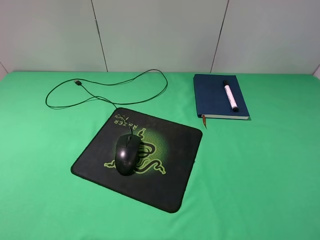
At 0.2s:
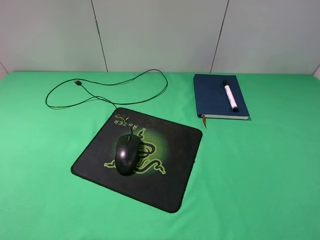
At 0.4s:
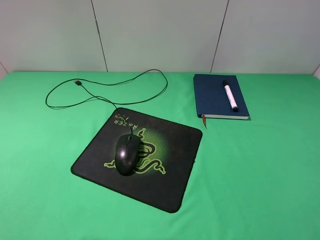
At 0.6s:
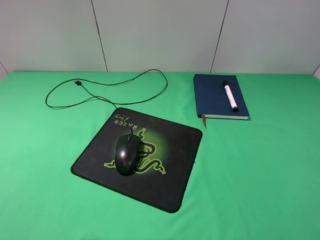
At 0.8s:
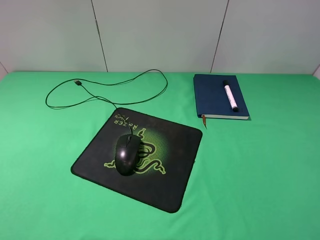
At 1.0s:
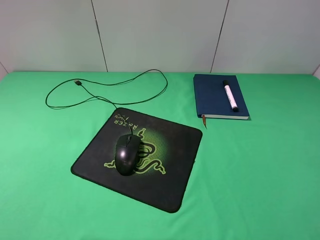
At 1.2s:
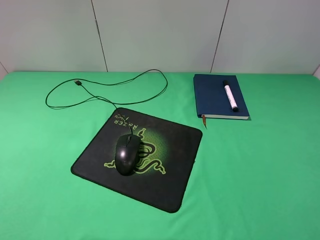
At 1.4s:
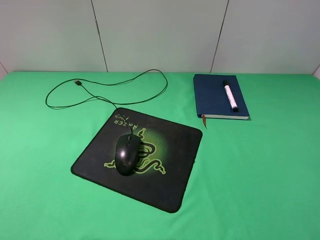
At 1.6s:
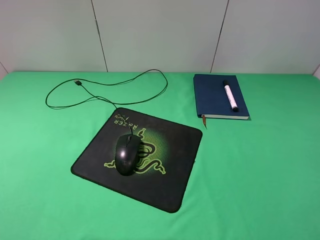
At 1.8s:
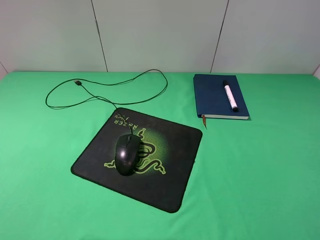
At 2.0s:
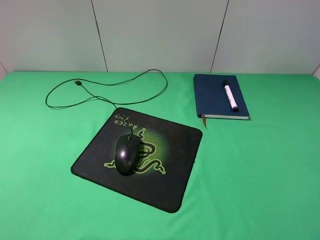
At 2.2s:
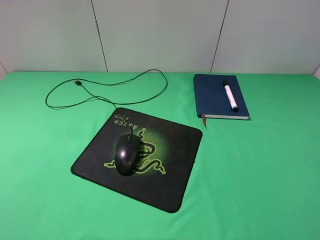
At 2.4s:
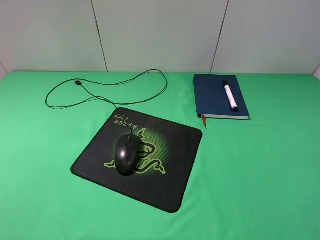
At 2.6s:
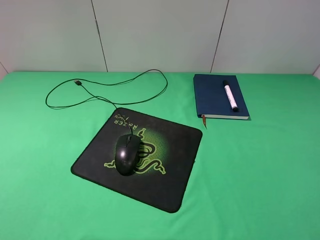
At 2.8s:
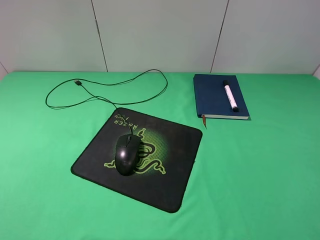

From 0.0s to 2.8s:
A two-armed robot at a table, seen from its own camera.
From 1.4s to 2.8s: Both grippers stay put.

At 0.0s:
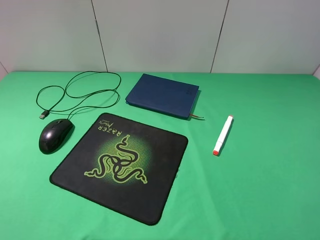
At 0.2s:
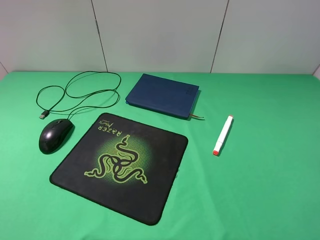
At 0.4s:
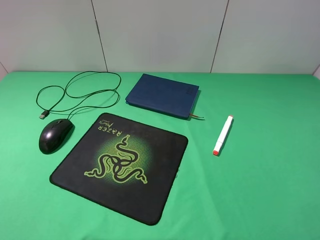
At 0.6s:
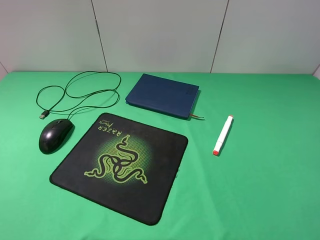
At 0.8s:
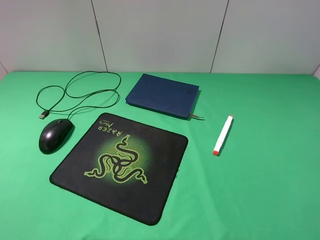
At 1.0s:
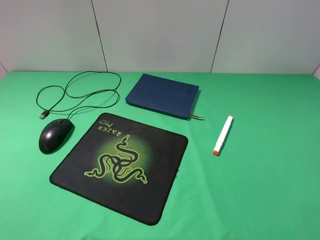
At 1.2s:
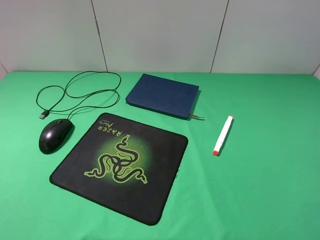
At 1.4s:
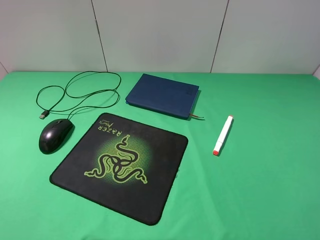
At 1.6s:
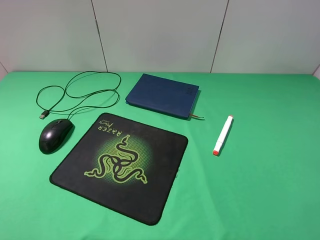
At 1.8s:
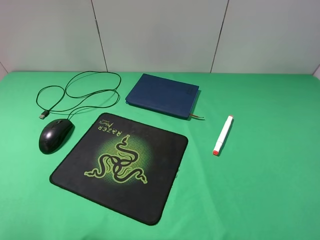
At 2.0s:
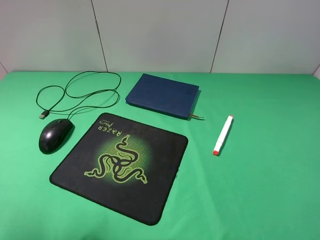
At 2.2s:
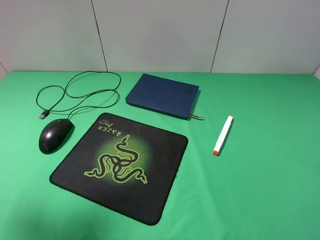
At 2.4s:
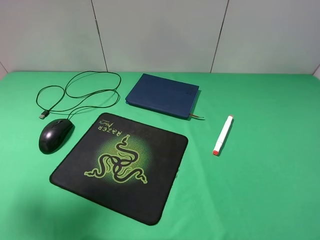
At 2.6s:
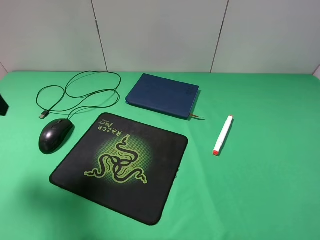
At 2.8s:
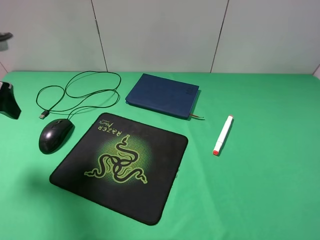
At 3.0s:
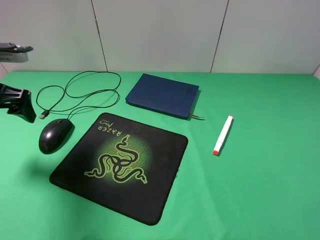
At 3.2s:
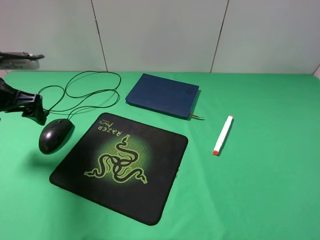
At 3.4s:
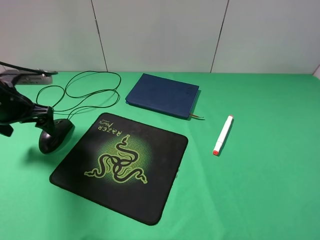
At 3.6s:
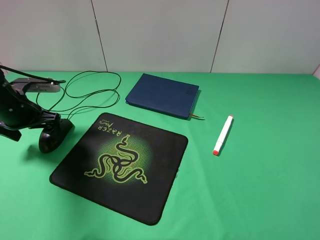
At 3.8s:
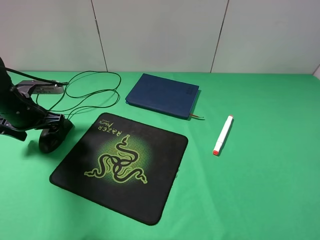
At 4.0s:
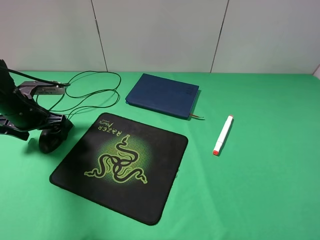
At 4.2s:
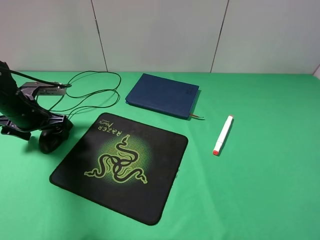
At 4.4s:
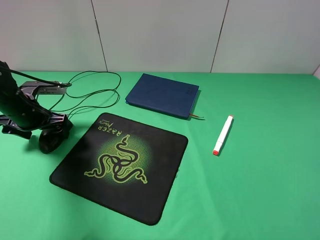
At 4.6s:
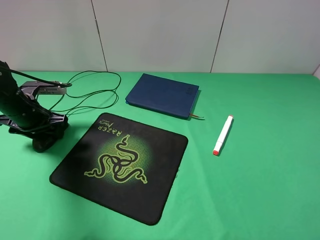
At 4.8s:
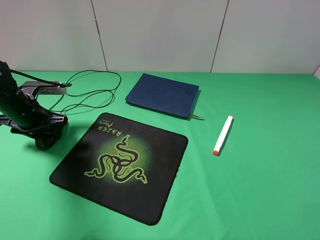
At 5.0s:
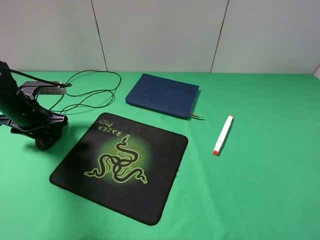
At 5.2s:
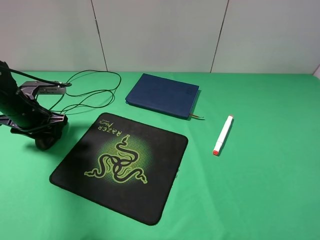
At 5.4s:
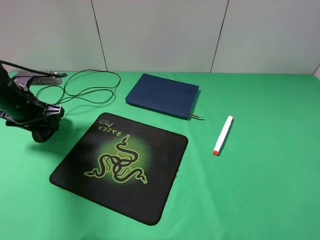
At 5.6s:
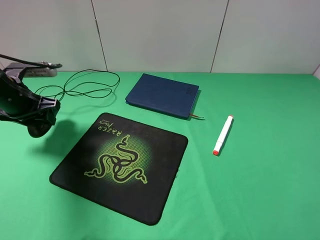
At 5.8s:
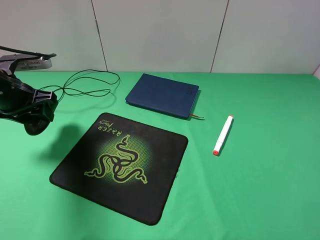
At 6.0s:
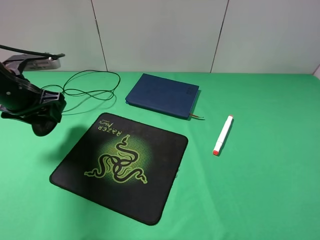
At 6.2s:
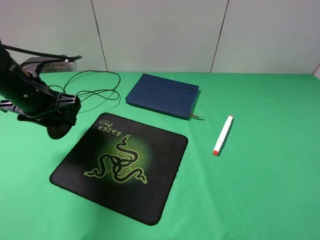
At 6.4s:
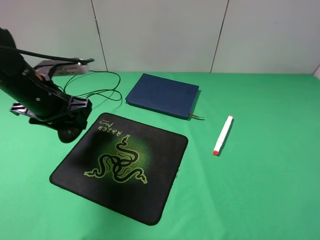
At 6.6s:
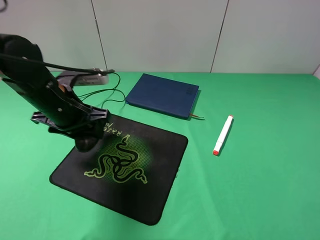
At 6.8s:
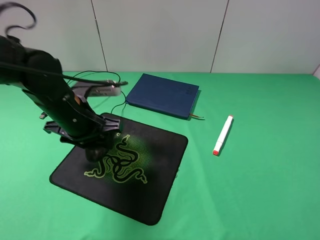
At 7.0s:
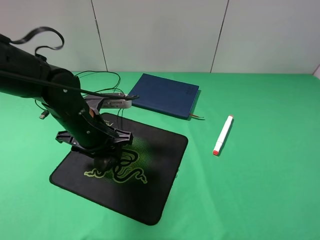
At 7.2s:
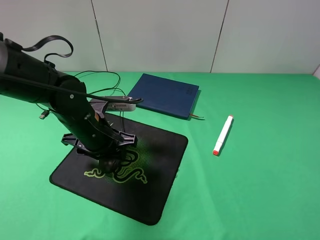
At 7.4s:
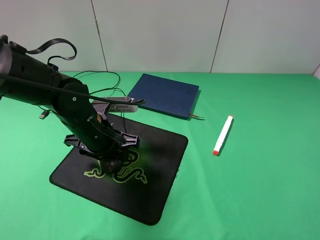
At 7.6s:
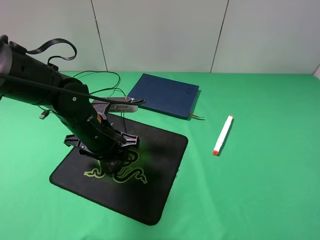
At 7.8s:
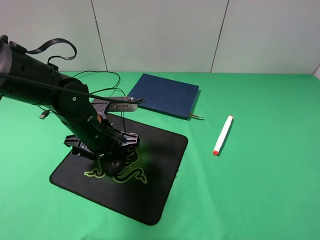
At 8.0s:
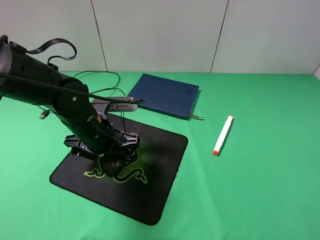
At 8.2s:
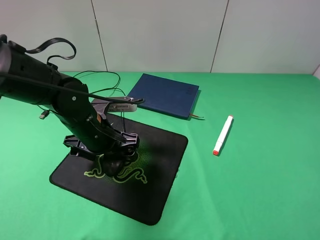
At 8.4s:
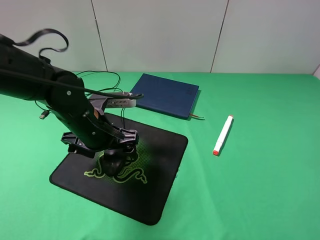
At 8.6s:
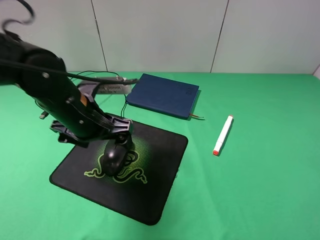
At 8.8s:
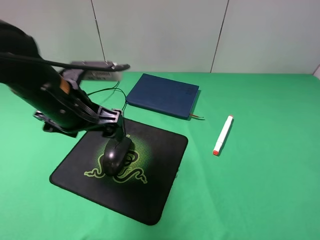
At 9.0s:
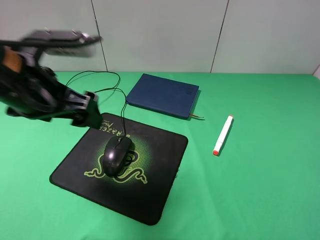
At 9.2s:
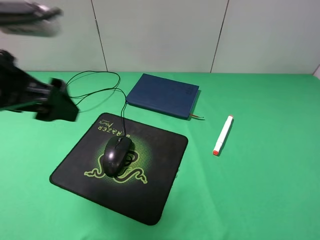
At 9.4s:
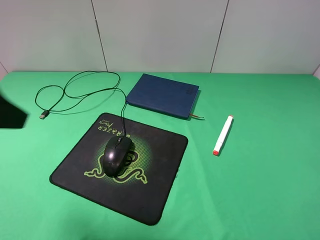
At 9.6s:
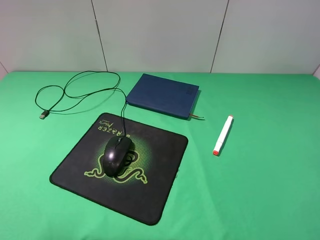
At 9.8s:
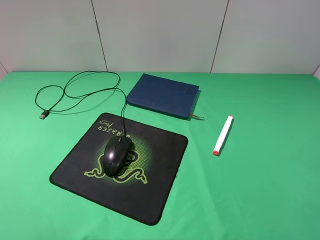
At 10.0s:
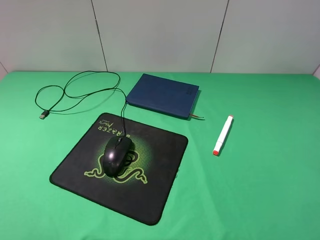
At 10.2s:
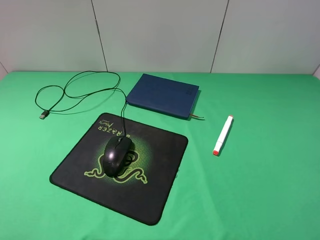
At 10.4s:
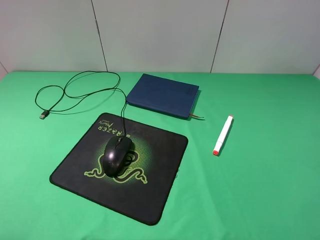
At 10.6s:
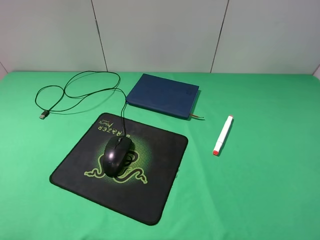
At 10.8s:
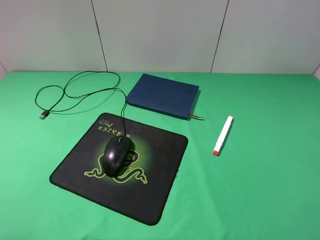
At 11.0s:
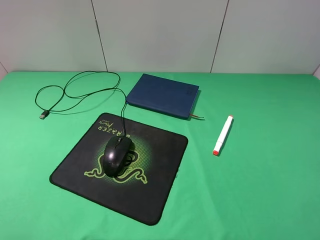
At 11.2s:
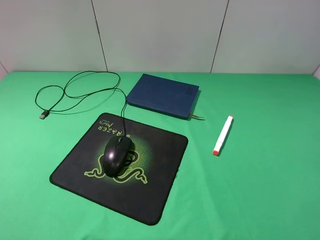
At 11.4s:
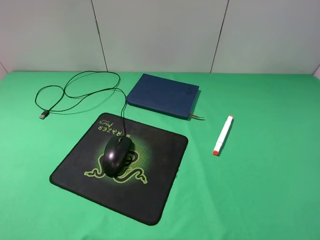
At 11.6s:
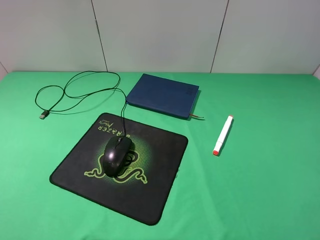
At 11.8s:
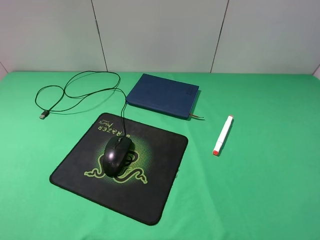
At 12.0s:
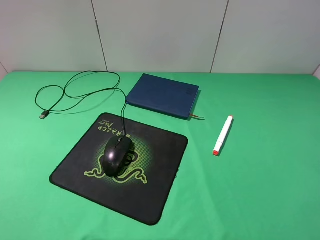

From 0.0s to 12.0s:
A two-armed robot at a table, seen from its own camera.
Step, from 0.0s to 4.8s: Grasp the mouse with the left gripper.
Step, from 5.0s to 8.4s: Place the mouse on the mouse pad with the left gripper.
From 1.6s to 3.0s: The left gripper travels forward and downward by approximately 25 cm.
From 3.0s to 4.4s: The left gripper moves downward, some 10 cm.
From 4.4s to 6.0s: The left gripper is displaced upward by roughly 10 cm, and closes.
From 6.0s to 7.6s: The left gripper heads to the right and downward, covering roughly 15 cm.
From 7.6s to 9.0s: The left gripper goes some 15 cm upward, and opens its fingers.
From 9.0s to 10.4s: The left gripper travels backward and to the left by some 20 cm.

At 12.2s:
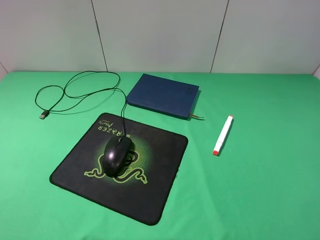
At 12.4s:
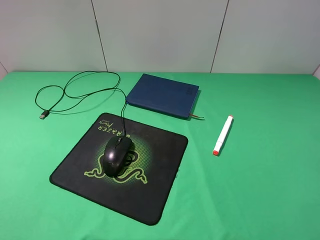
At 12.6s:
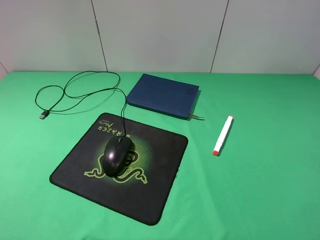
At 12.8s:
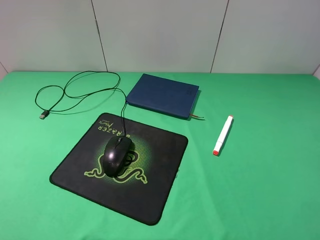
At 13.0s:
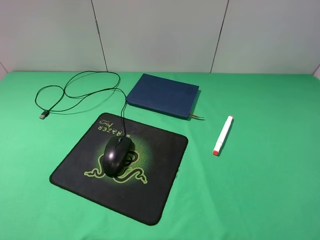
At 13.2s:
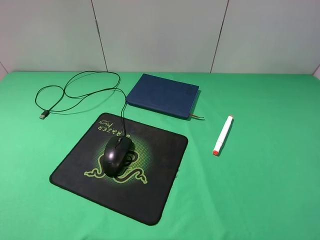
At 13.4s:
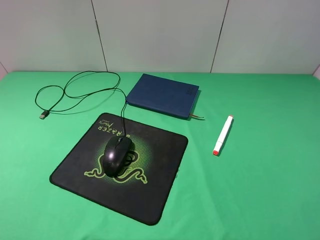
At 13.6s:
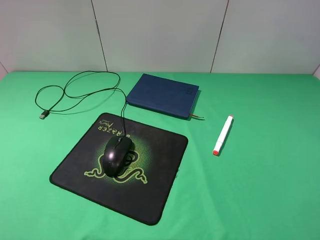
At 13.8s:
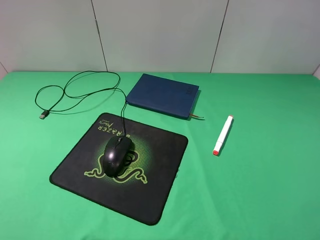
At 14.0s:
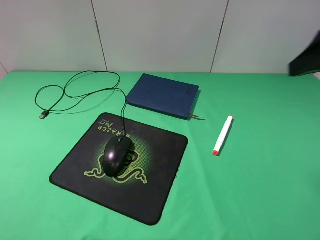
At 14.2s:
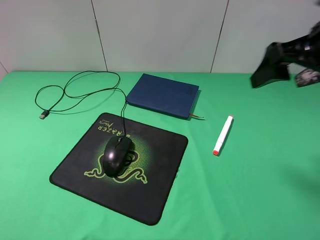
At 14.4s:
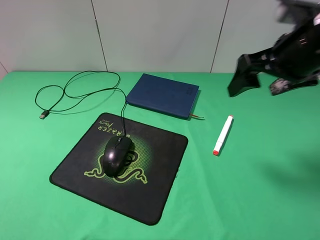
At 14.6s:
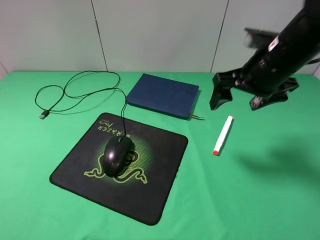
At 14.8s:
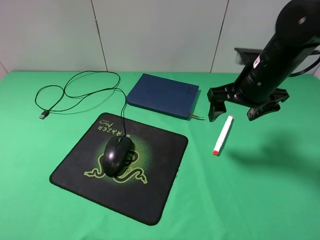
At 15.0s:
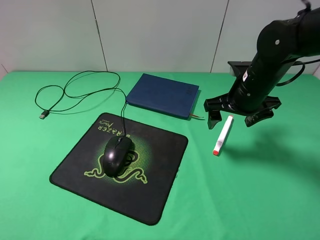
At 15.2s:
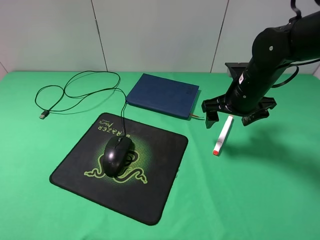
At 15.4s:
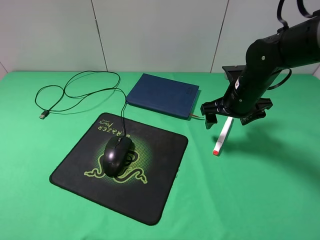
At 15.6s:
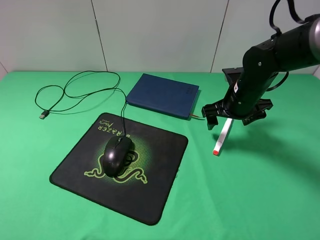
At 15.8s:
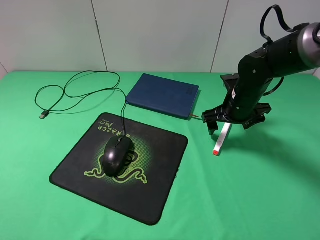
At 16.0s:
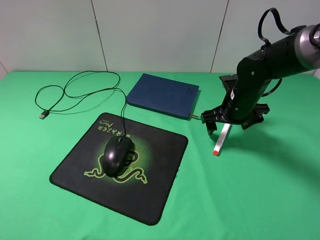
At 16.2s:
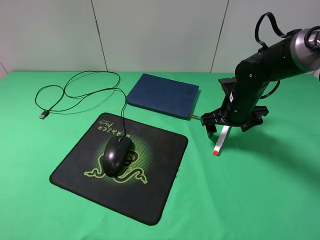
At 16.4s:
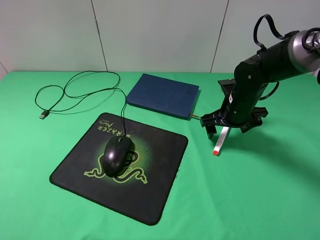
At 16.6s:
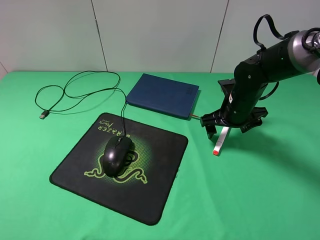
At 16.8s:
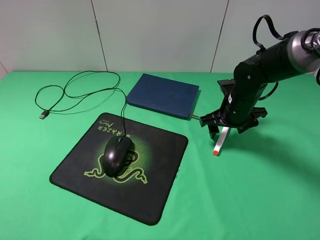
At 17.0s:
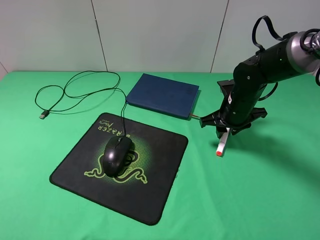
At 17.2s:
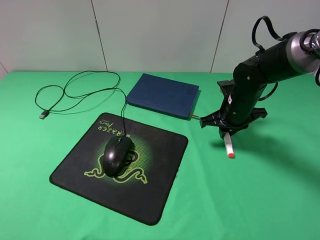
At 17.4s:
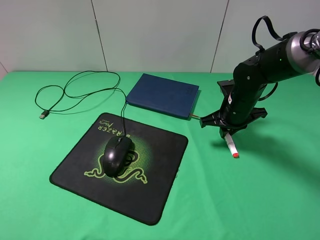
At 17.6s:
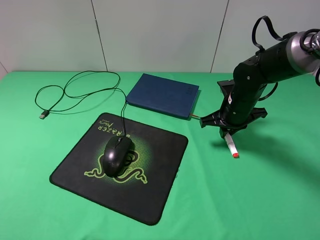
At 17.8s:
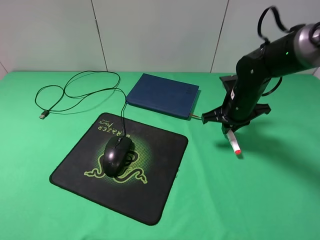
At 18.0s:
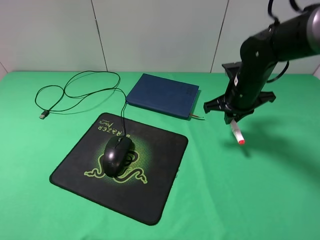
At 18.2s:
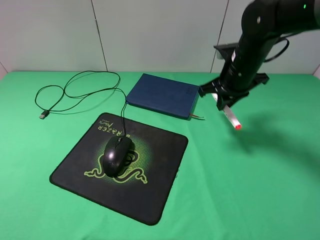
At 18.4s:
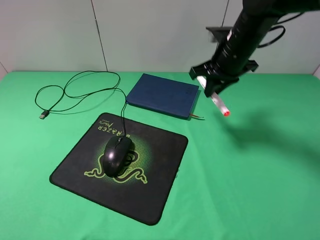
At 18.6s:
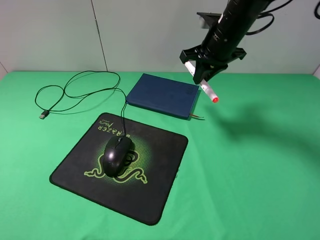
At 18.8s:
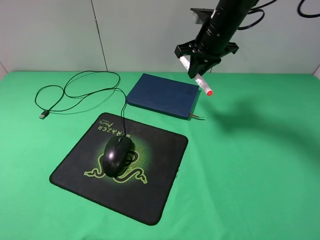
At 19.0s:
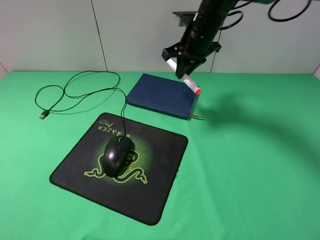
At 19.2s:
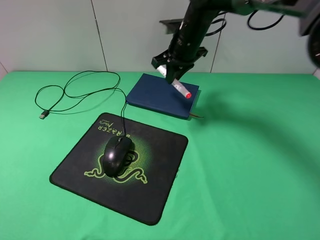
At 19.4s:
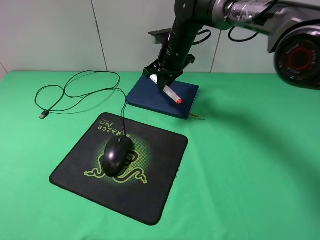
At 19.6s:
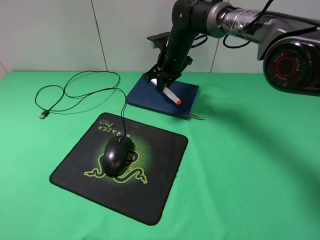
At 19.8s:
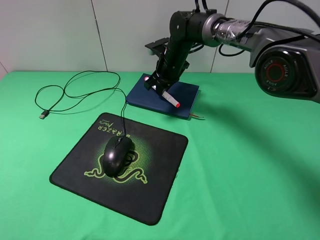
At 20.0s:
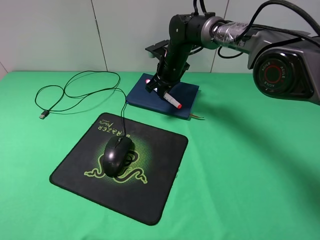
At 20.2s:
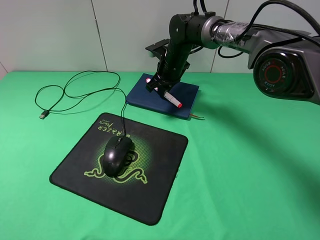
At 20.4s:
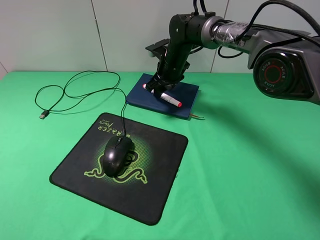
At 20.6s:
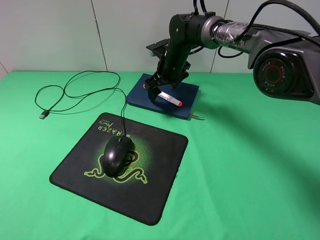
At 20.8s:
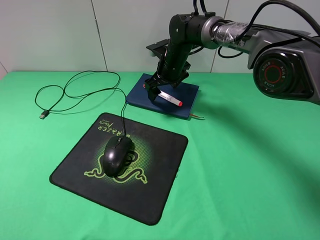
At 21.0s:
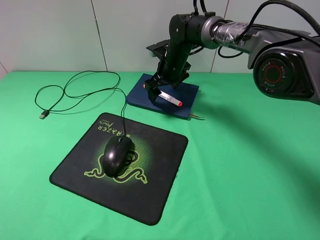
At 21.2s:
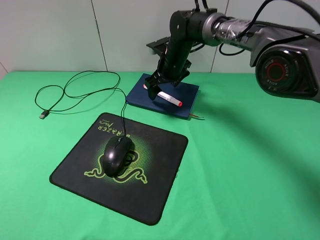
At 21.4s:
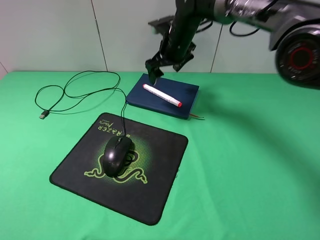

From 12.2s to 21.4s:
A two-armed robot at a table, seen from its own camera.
Step, from 12.2s to 17.4s: Grasp the marker with the right gripper.
Step, from 17.6s to 20.8s: Place the marker on the notebook with the right gripper.
From 13.8s to 15.2s: The right gripper is displaced downward, forward and to the left by some 25 cm.
From 15.2s to 16.8s: The right gripper is displaced downward by about 5 cm.
From 16.8s to 18.4s: The right gripper shifts some 10 cm upward, and closes.
From 18.4s to 19.8s: The right gripper is displaced to the left, forward and downward by some 15 cm.
From 19.8s to 21.4s: The right gripper travels upward by some 5 cm, and opens its fingers.
